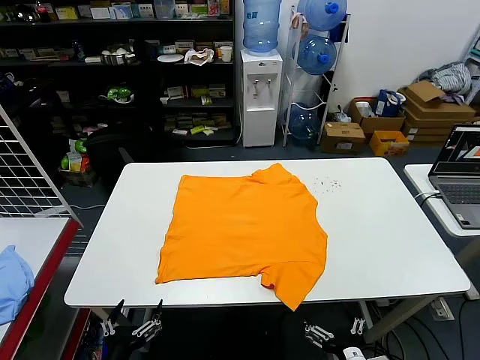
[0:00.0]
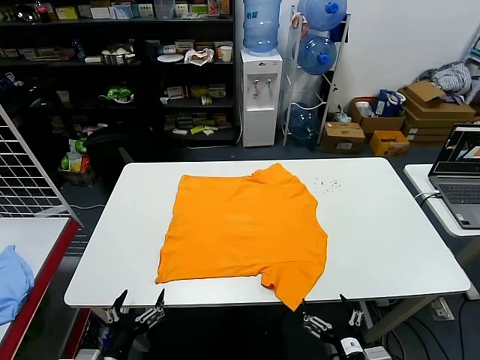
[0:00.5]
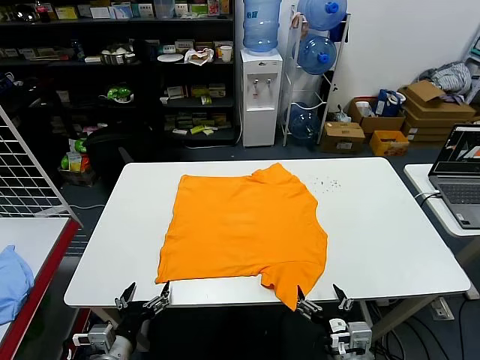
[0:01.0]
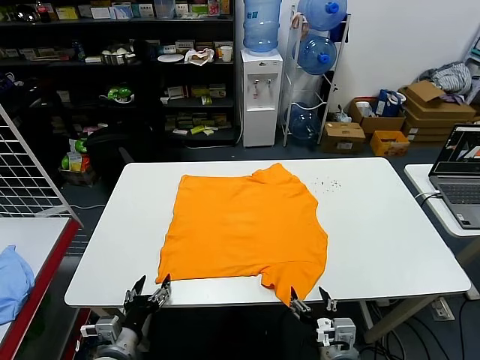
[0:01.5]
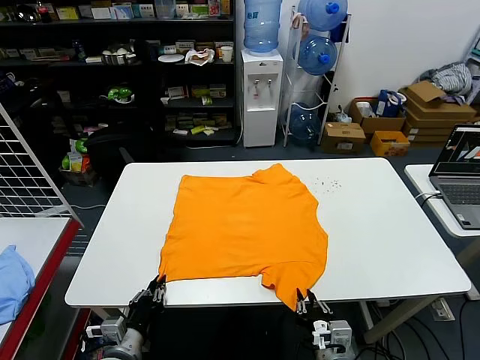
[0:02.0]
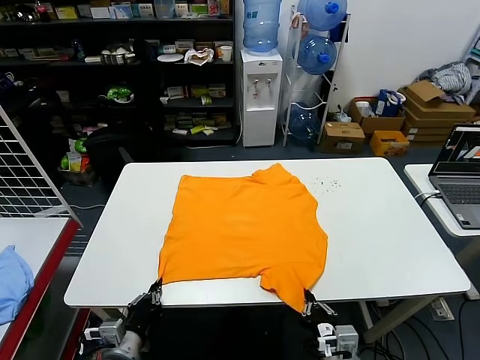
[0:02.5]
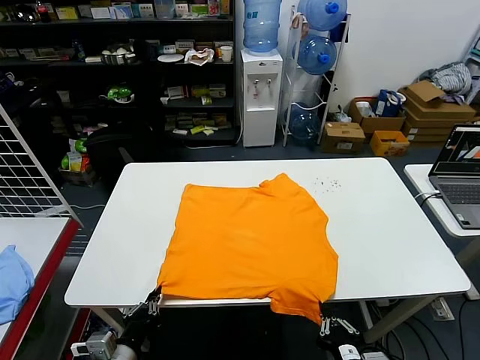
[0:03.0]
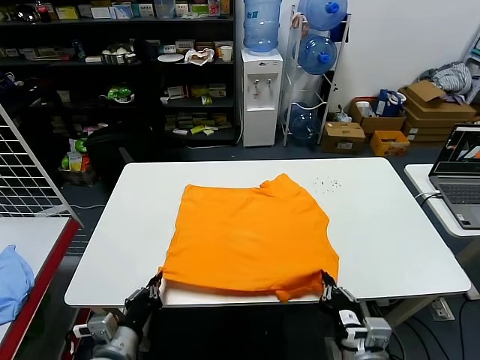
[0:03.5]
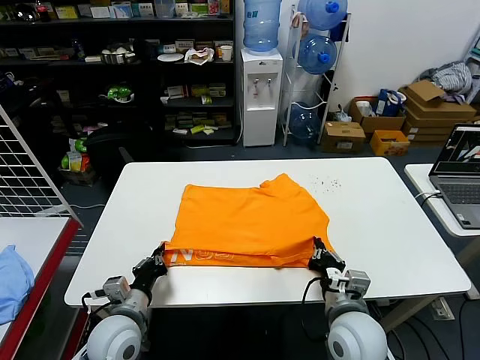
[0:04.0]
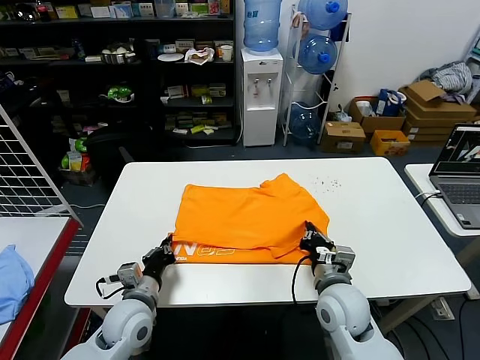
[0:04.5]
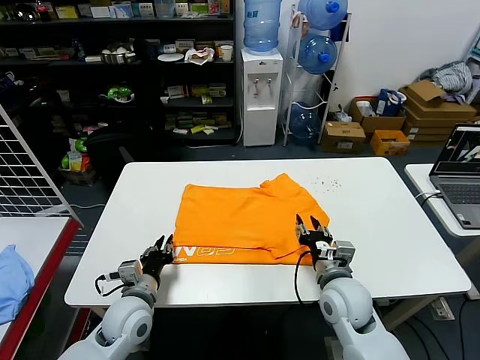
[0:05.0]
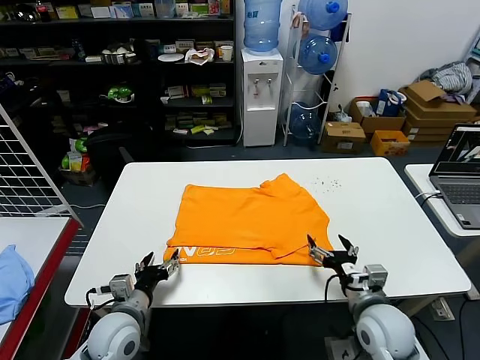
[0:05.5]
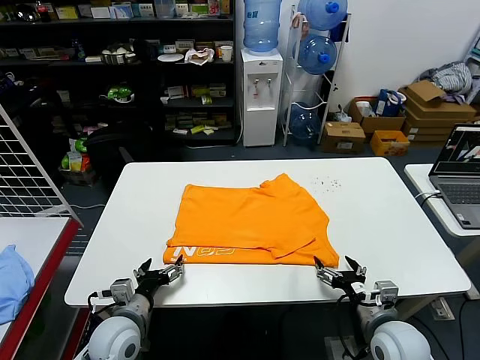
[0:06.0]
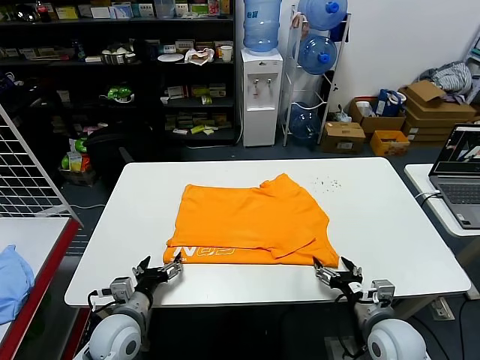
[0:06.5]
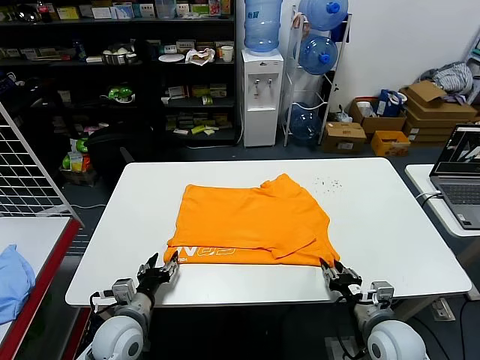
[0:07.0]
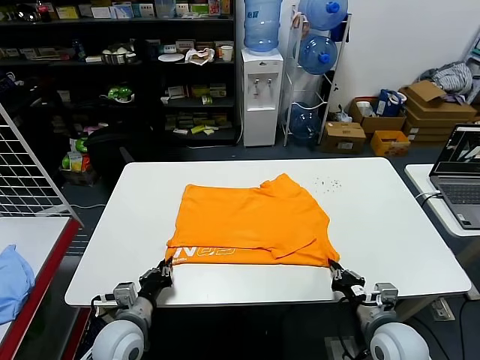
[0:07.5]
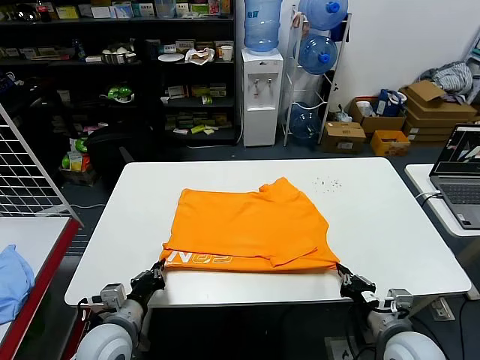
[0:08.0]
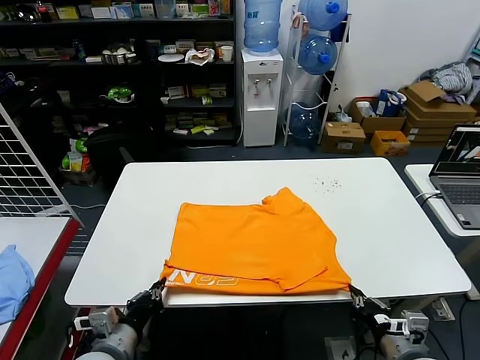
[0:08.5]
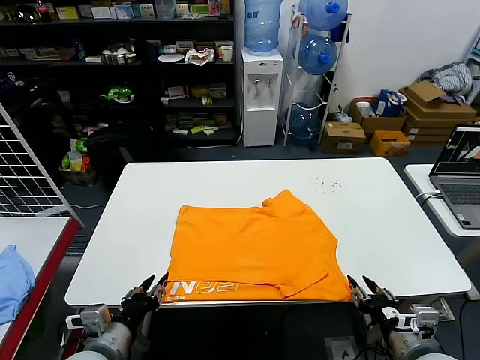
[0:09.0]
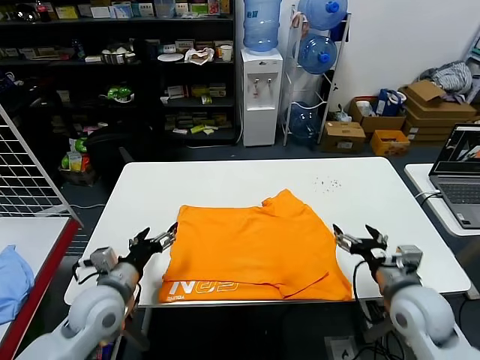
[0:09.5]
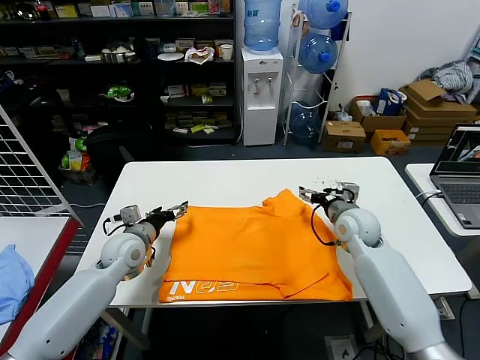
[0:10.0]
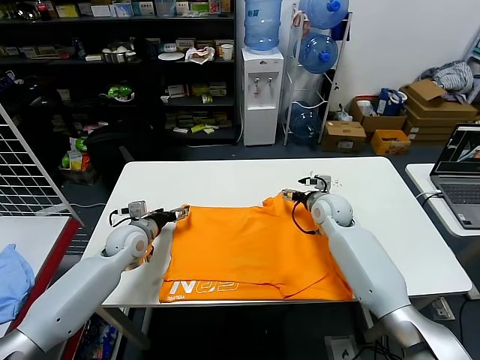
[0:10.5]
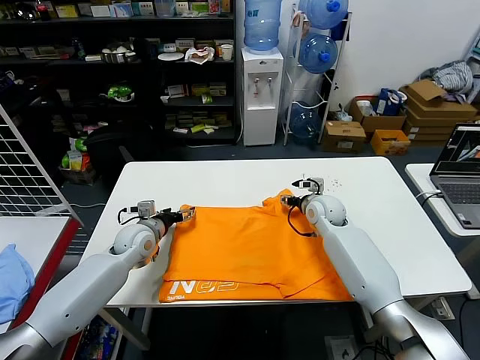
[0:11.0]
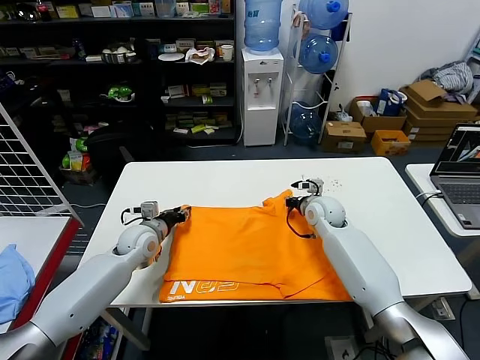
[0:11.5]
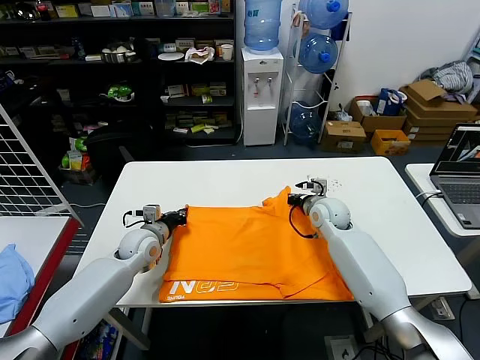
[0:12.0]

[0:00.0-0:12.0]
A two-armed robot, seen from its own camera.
Task of the whole recording: fold and organize the clothes.
Step, 0:00.0 to 0:02.0: use both grippers simultaneously to clamp the lower edge of the clothing fabric.
Step, 0:02.5 to 0:04.5: use both grippers to drag the lower edge of the fabric forward and fold it over the upper edge.
Step, 0:05.0 to 0:08.5: Drag the clothes downward with both gripper.
Step, 0:09.0 to 0:11.5: use both grippers simultaneously to clamp the upper edge of the clothing fabric.
0:02.0 to 0:04.0: The right gripper travels forward by approximately 10 cm, while the left gripper heads forward and upward, covering about 10 cm.
0:04.0 to 0:06.0: The left gripper opens up. Meanwhile the right gripper is displaced to the right by roughly 10 cm, and opens its fingers.
0:06.0 to 0:08.0: The left gripper closes up, while the right gripper closes.
0:08.0 to 0:10.0: Both grippers move forward, approximately 25 cm. The left gripper opens its fingers. The right gripper opens up.
0:10.0 to 0:12.0: The left gripper moves roughly 5 cm, and closes; the right gripper changes place by roughly 5 cm, and closes.

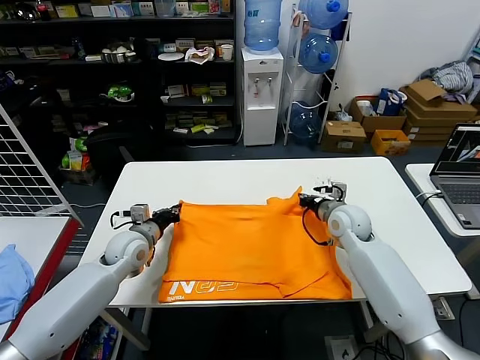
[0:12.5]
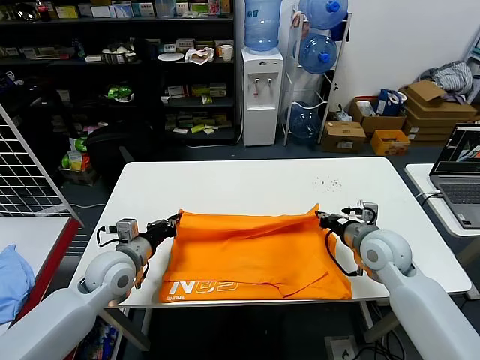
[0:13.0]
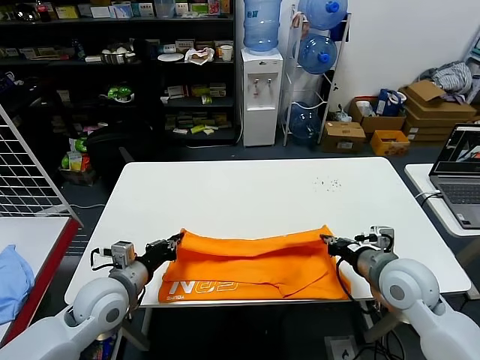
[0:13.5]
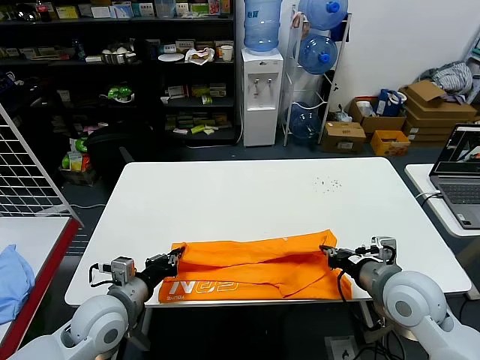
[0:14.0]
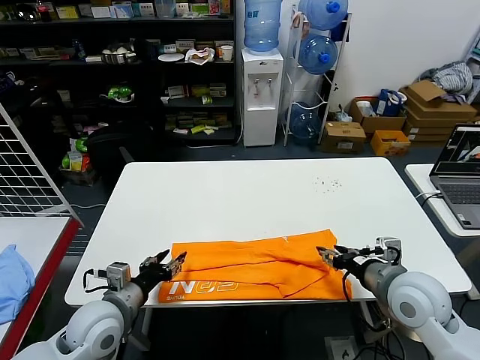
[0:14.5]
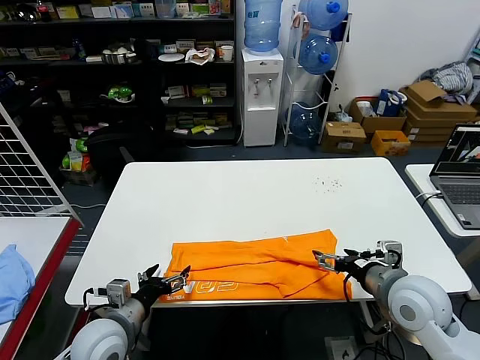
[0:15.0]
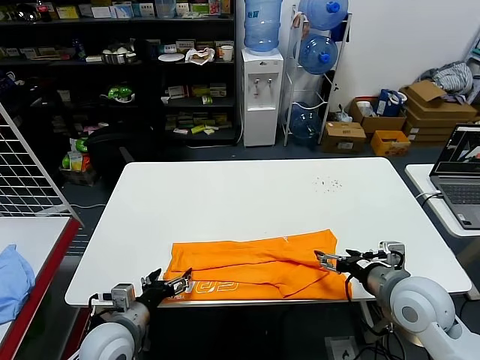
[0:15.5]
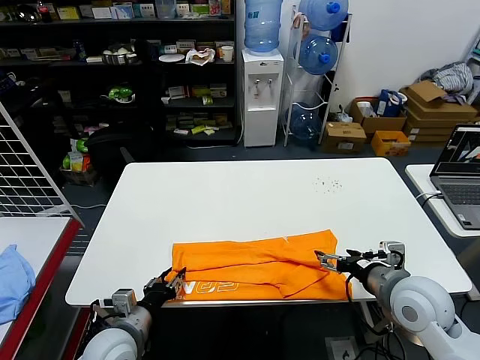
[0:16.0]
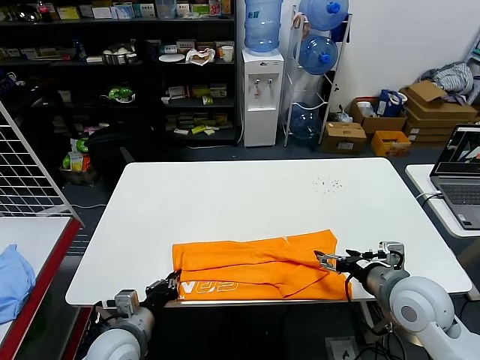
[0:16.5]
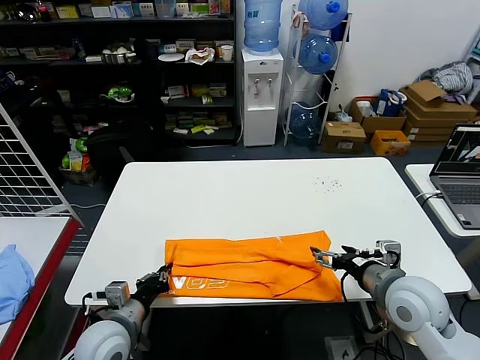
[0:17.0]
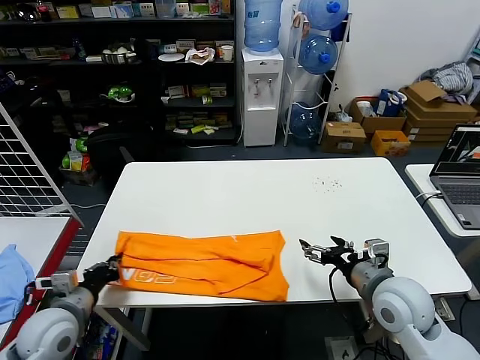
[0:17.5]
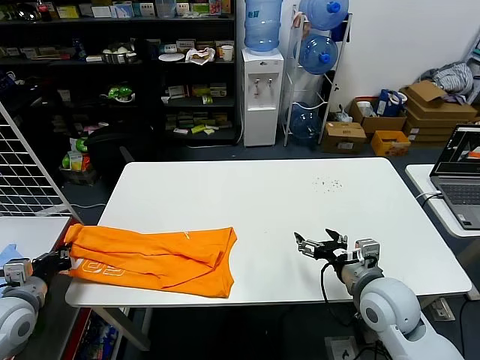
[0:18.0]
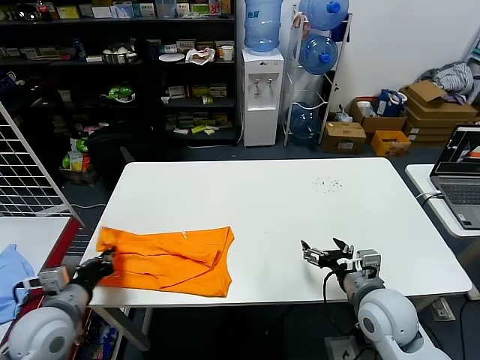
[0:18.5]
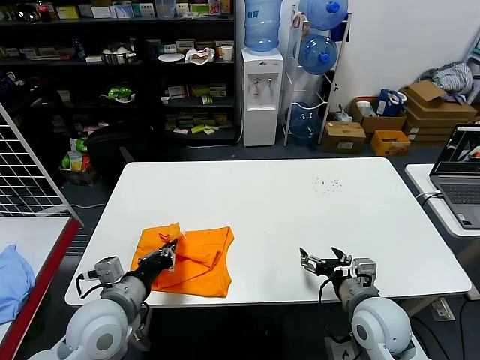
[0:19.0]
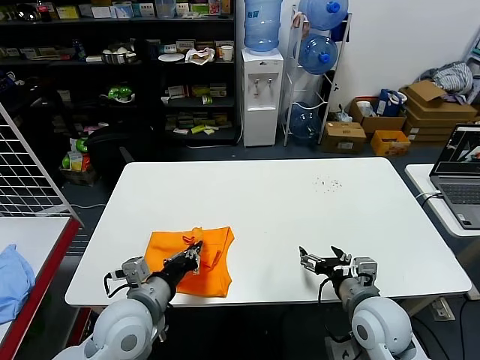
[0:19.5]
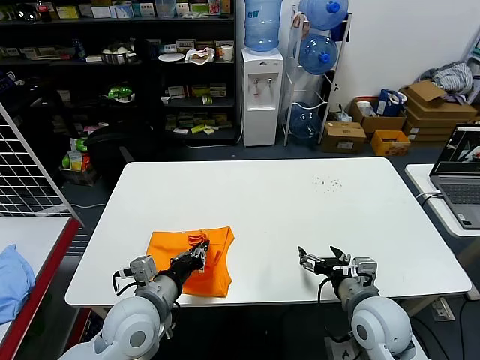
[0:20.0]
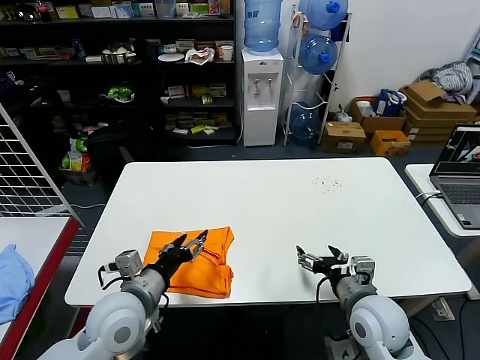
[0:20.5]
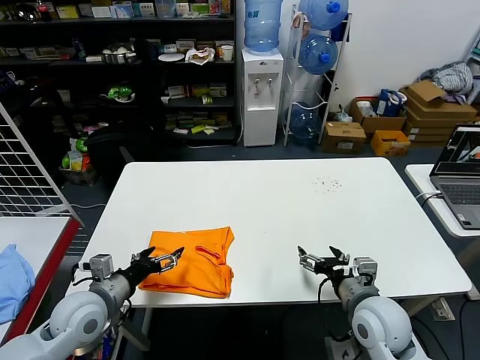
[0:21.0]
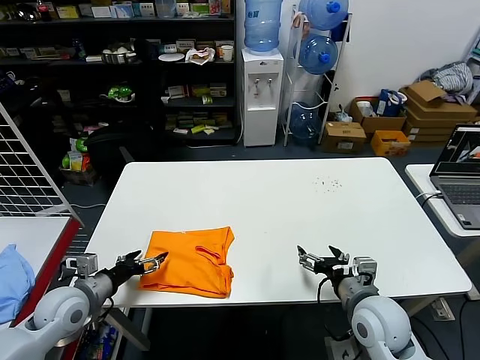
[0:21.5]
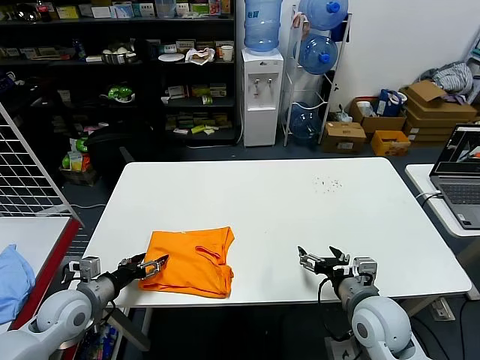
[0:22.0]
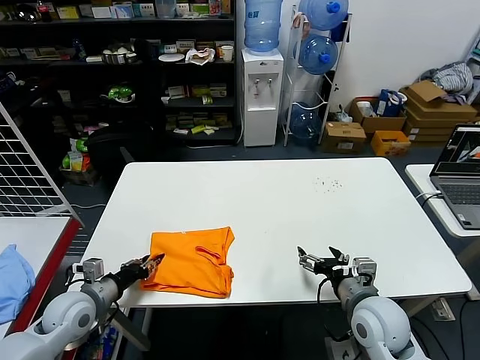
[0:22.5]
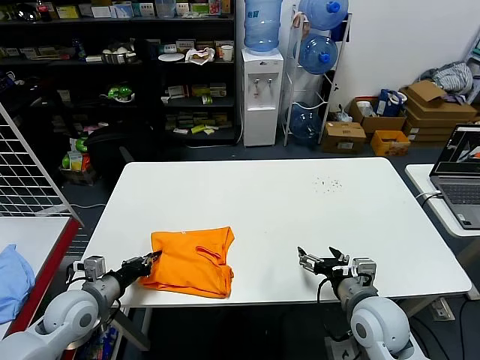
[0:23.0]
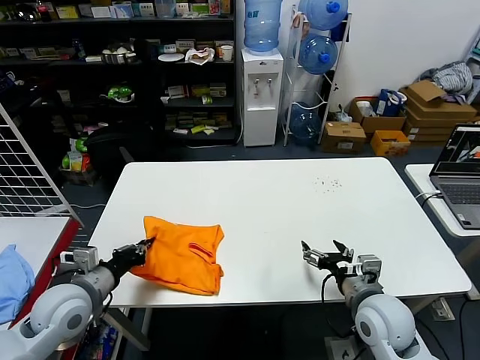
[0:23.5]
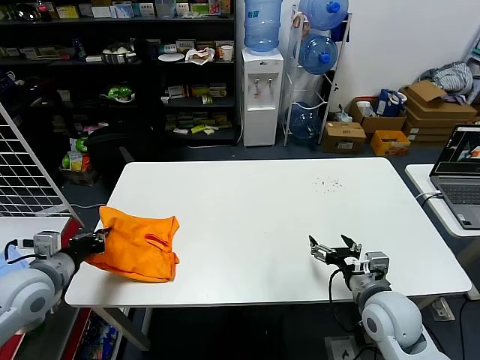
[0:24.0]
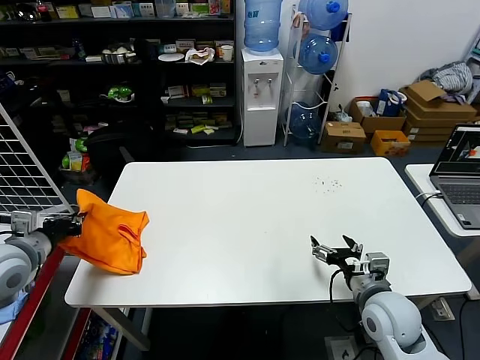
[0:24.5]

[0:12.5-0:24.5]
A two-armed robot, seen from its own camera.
Task of the whole recording: fold and organize the clothes.
Step, 0:12.5 to 0:14.0: use both grippers to drag the upper edge of the fabric backward and fold it over the lower edge.
Step, 0:14.5 to 0:16.0: use the left gripper to clamp the left edge of the fabric.
Step, 0:16.5 to 0:20.0: use the left gripper to drag the left edge of the fabric to the left and folds it over the right edge.
0:12.5 to 0:14.5: The two grippers go some 20 cm backward. The left gripper opens up; the right gripper opens.
0:14.5 to 0:16.5: The left gripper heads downward, covering about 5 cm, and closes. The right gripper opens its fingers.
0:16.5 to 0:18.5: The left gripper moves to the left and upward, approximately 15 cm; the right gripper moves approximately 5 cm.
0:18.5 to 0:20.5: The left gripper travels to the right by approximately 15 cm, and opens its fingers.
0:20.5 to 0:22.5: The left gripper shifts some 15 cm to the left and downward.
0:22.5 to 0:24.5: The left gripper heads upward and to the left, covering approximately 15 cm.

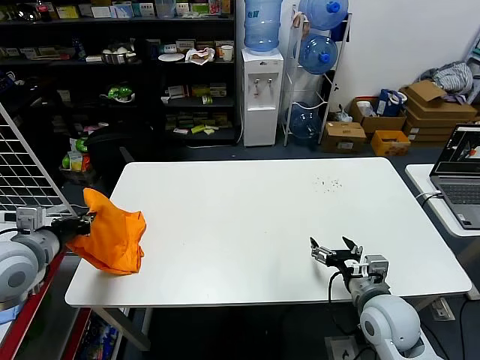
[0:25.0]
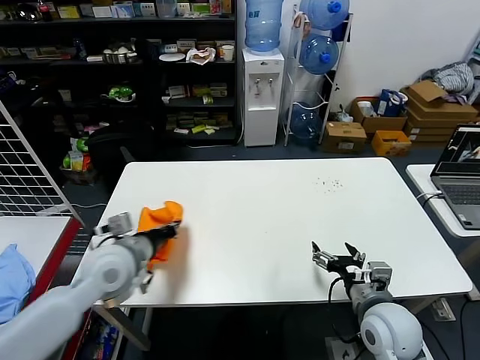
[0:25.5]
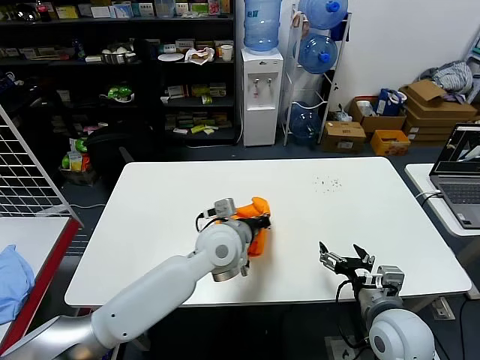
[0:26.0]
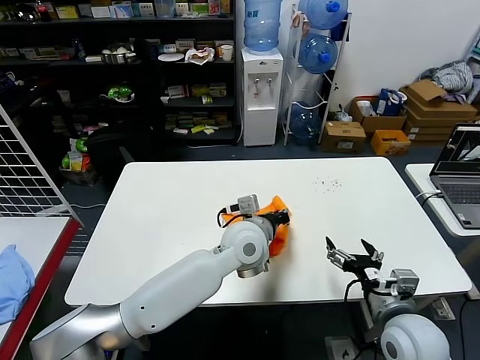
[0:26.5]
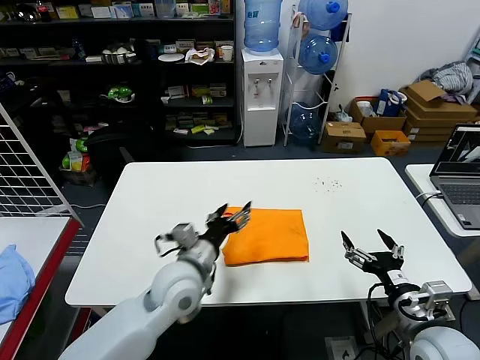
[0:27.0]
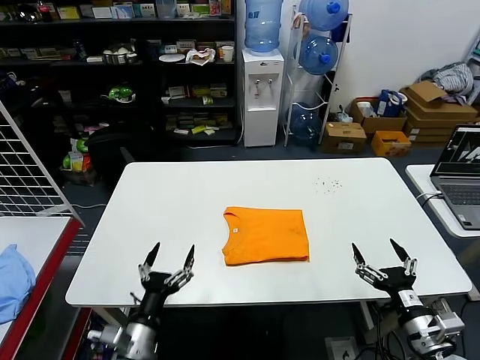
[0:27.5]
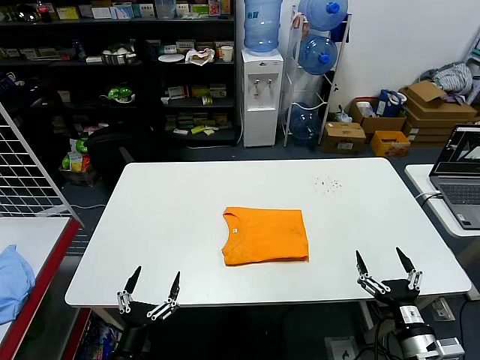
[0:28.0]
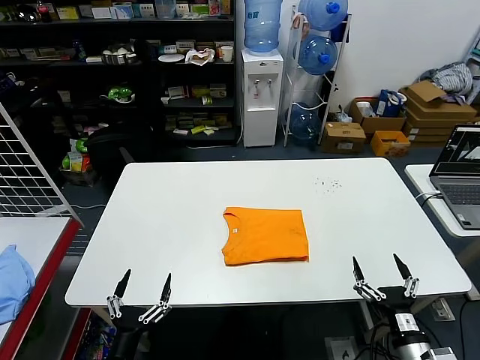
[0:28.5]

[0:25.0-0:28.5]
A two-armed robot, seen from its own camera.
Task of the whole recording: fold and organize the clothes.
0:25.0 to 0:27.0: The right gripper heads backward, covering some 5 cm. The left gripper shifts some 30 cm to the right, and opens its fingers.
0:27.0 to 0:28.5: The right gripper moves downward and backward, approximately 10 cm. The left gripper shifts some 30 cm backward, to the left and downward.
